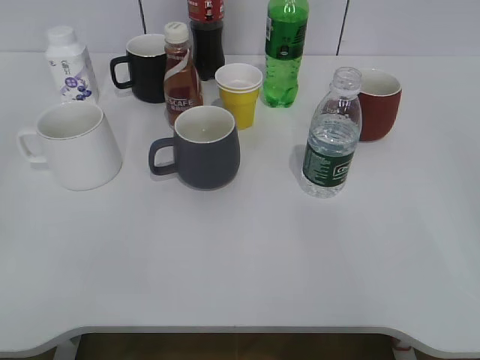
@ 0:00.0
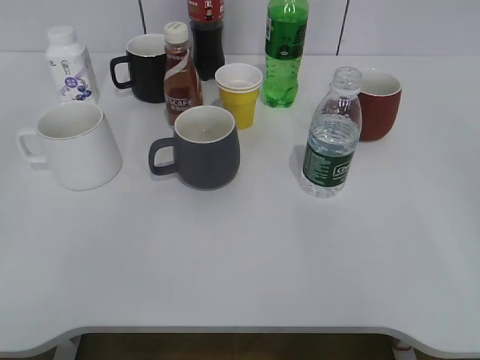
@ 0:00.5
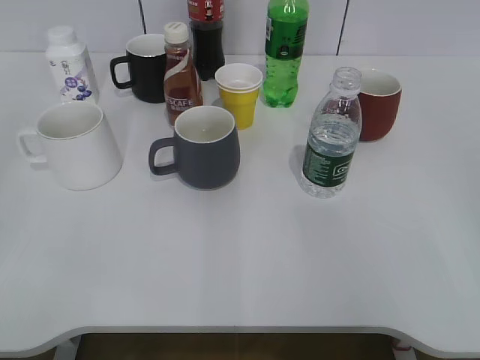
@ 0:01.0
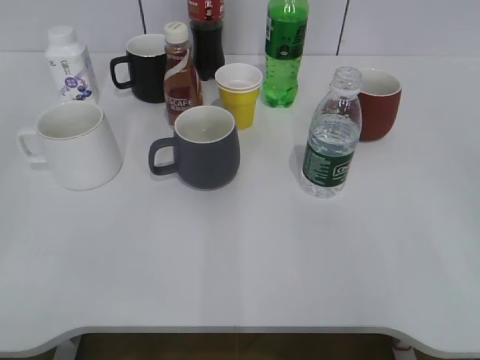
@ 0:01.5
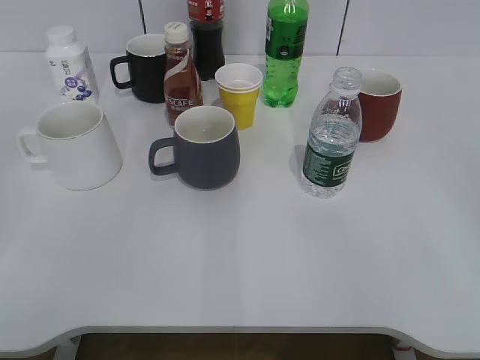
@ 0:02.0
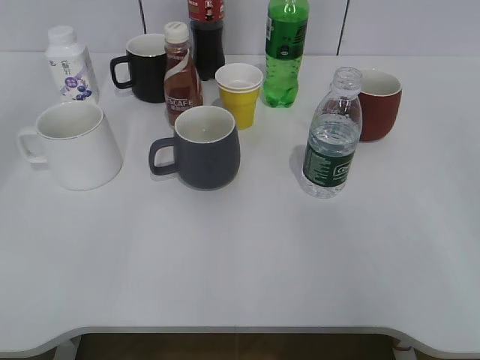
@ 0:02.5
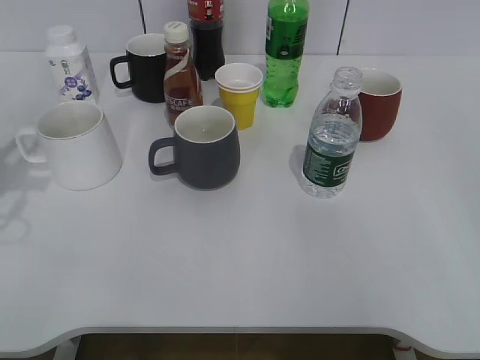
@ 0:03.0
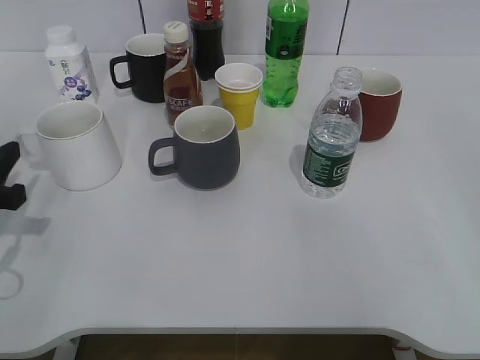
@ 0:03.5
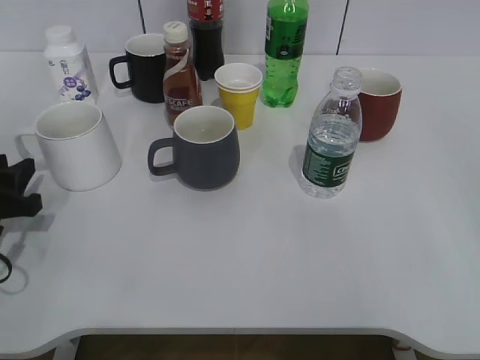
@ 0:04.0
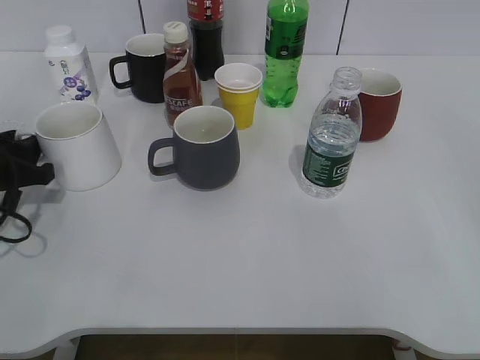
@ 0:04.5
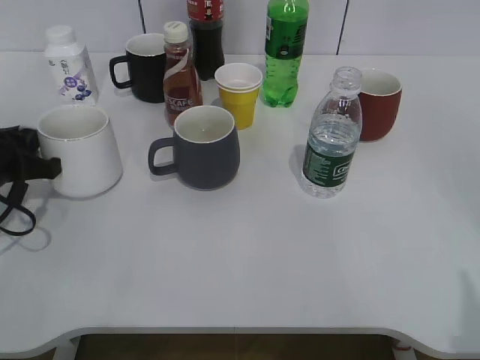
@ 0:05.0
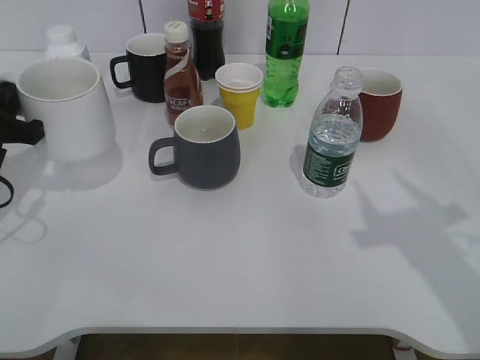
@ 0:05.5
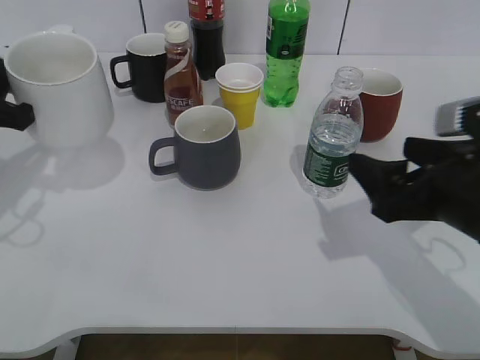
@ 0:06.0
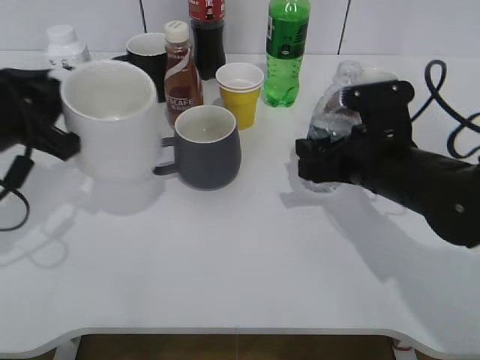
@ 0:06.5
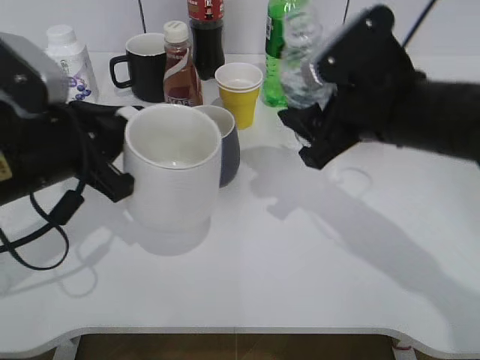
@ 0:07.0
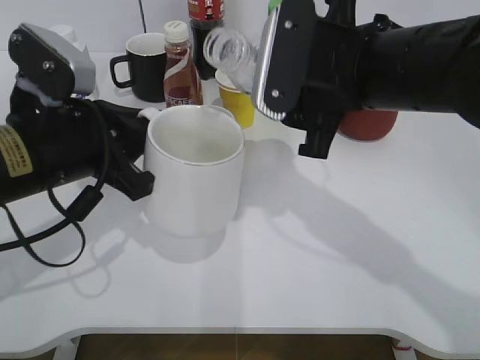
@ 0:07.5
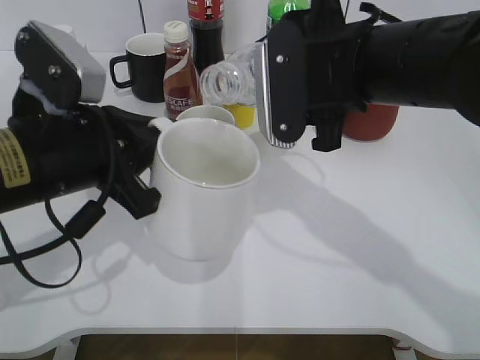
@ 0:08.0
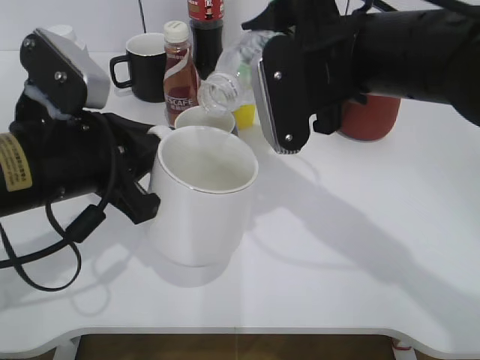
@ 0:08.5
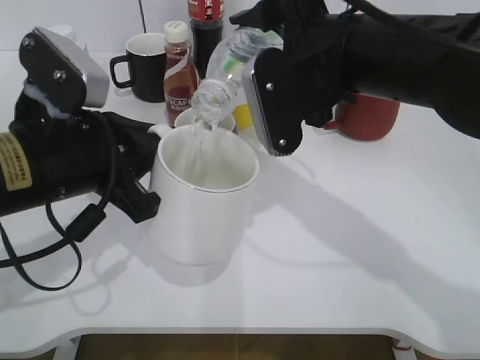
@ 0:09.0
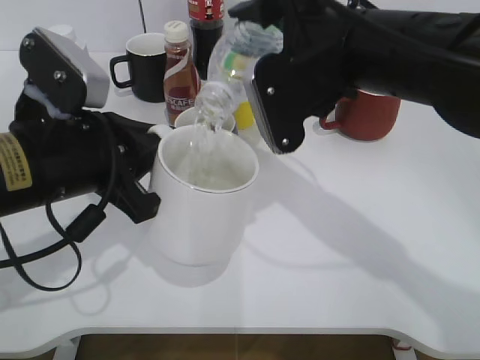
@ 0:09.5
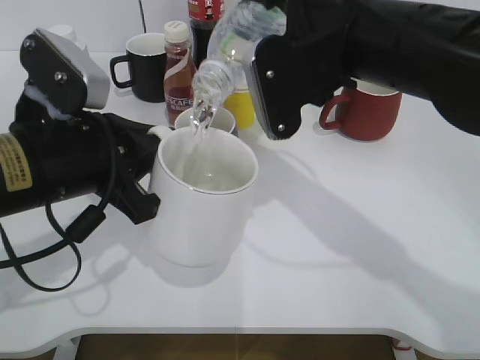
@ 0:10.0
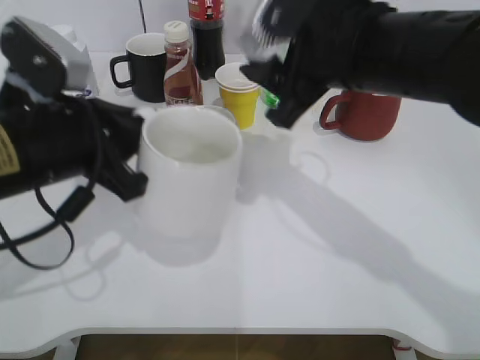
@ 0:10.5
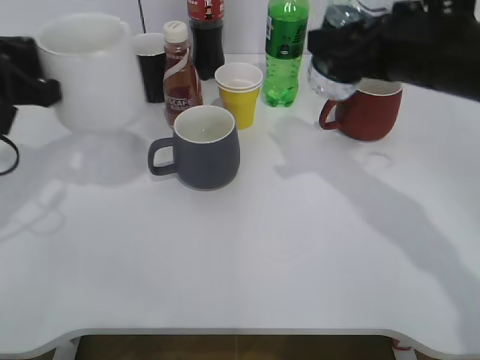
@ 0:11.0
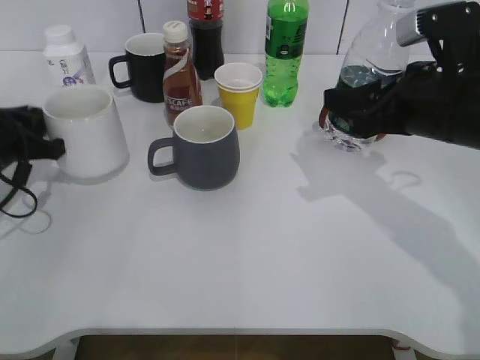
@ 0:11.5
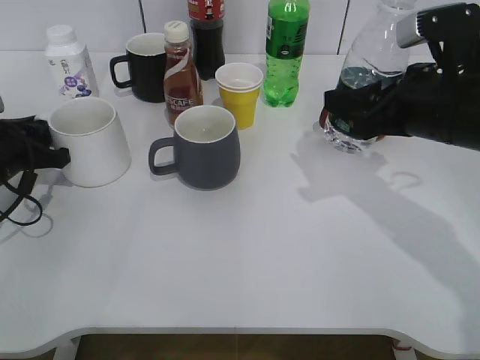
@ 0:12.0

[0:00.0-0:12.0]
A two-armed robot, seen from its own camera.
Step, 0:02.0 to 0:04.5: Grasp the white cup with left gripper.
Step, 0:05.0 to 0:05.5: Lift the white cup with left gripper.
Step, 0:06.0 to 0:06.5: Grasp the bottle with water with right gripper.
Step, 0:07.0 to 0:10.0: Pour the water from bottle to cup with right gripper.
0:02.0 to 0:04.0: The left gripper heads forward and downward, covering roughly 30 cm.
0:04.0 to 0:06.0: The left gripper moves upward, some 10 cm, and closes up; the right gripper moves forward, to the left and downward, about 25 cm, and closes, then reopens.
0:06.0 to 0:08.0: The left gripper shifts roughly 15 cm to the right and backward. The right gripper shifts some 15 cm to the left, upward and forward, and closes up.
0:10.0 to 0:12.0: The right gripper goes about 10 cm to the right and downward, while the left gripper travels to the left, forward and downward by roughly 20 cm.

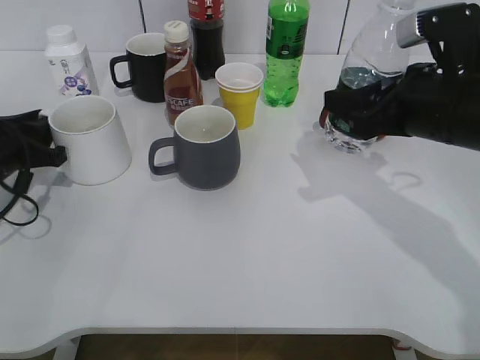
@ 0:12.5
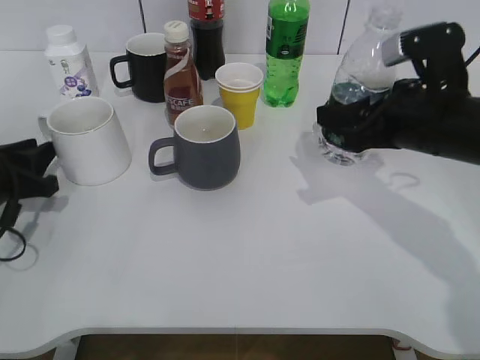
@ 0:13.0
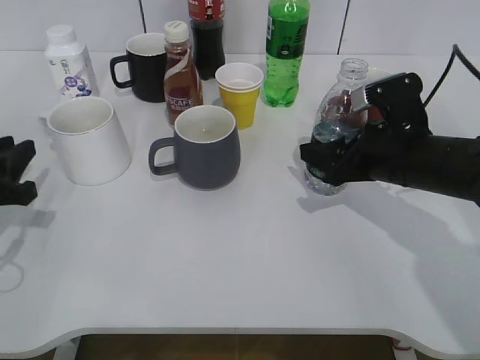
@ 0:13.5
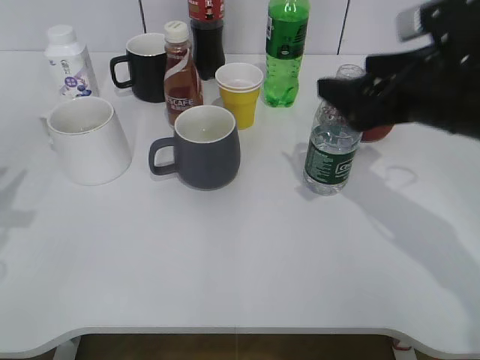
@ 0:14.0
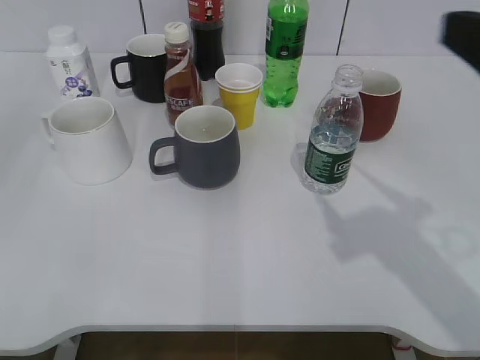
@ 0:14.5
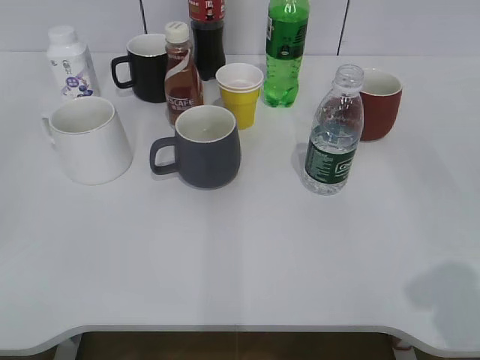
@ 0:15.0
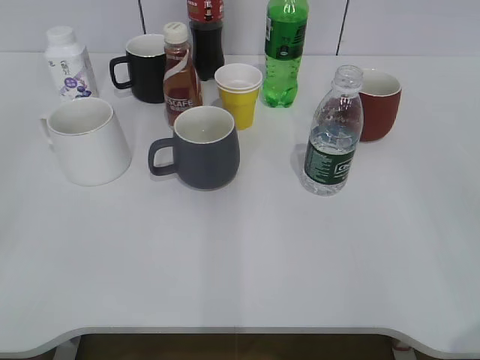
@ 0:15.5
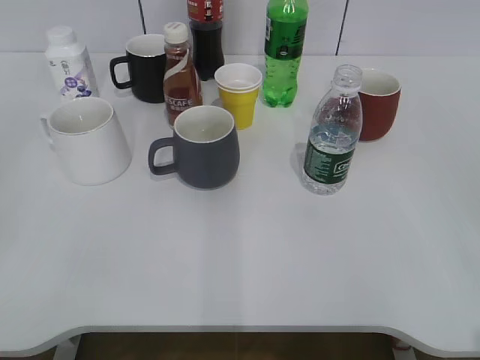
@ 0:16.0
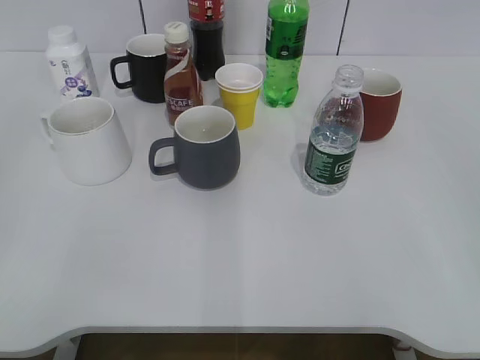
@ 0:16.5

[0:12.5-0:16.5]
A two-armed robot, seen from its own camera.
Step, 0:12.5 to 0:13.5: Place the water bottle on the table with right gripper.
0:12.5 to 0:14.5: The right gripper travels backward and upward by roughly 15 cm, and opens its fingers. Meanwhile the left gripper shifts roughly 30 cm backward and upward, and opens up.
0:14.5 to 0:16.5: The right gripper heads backward and to the right, covering roughly 20 cm.
